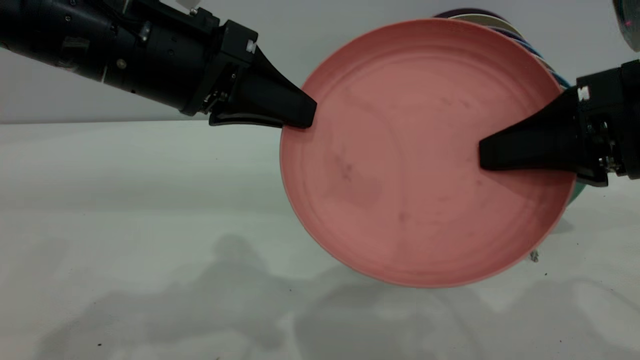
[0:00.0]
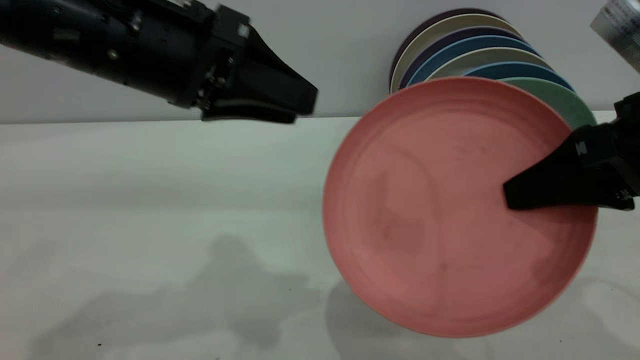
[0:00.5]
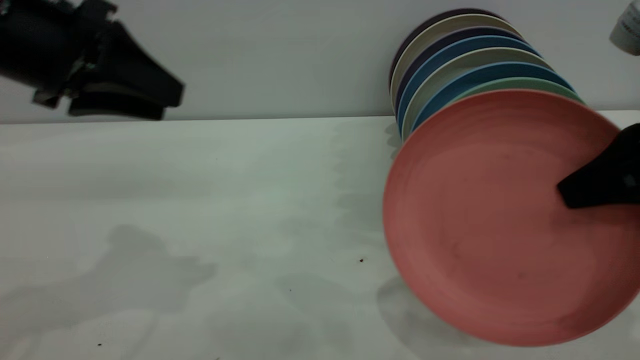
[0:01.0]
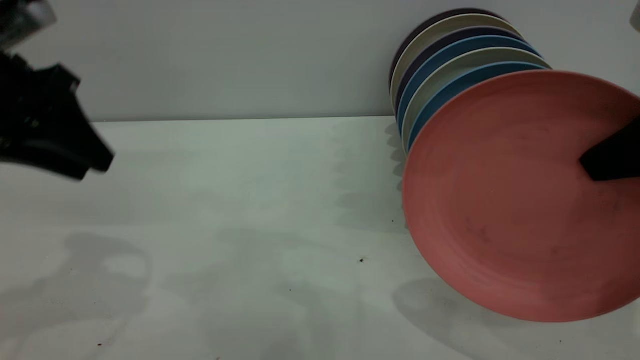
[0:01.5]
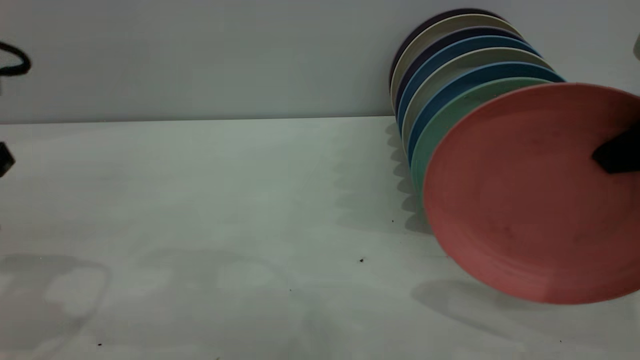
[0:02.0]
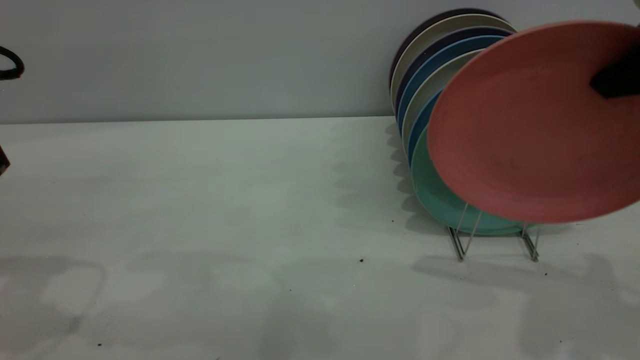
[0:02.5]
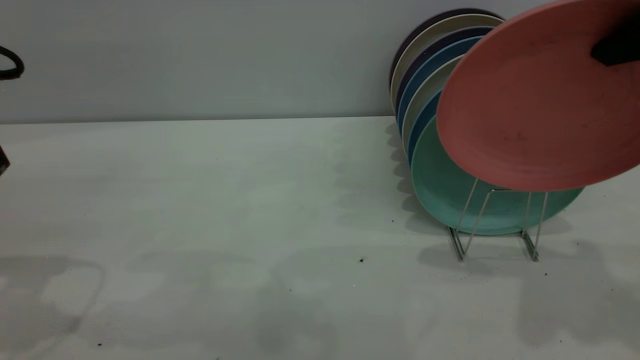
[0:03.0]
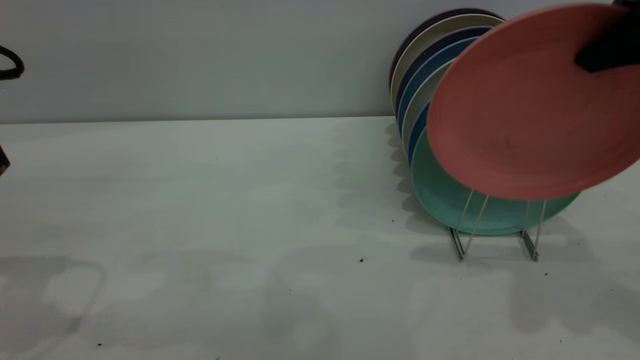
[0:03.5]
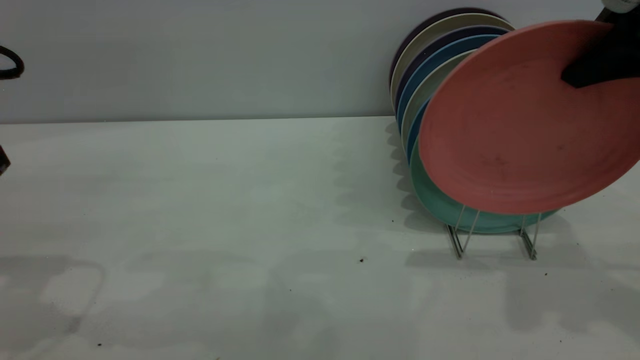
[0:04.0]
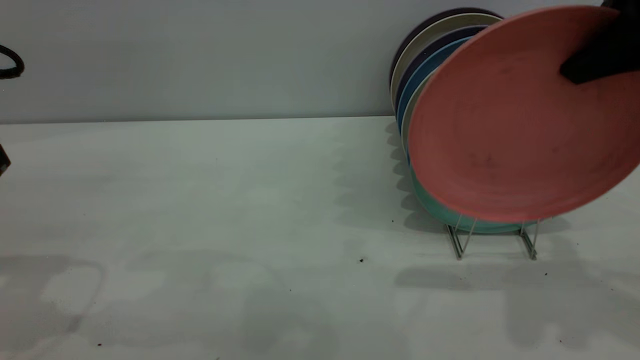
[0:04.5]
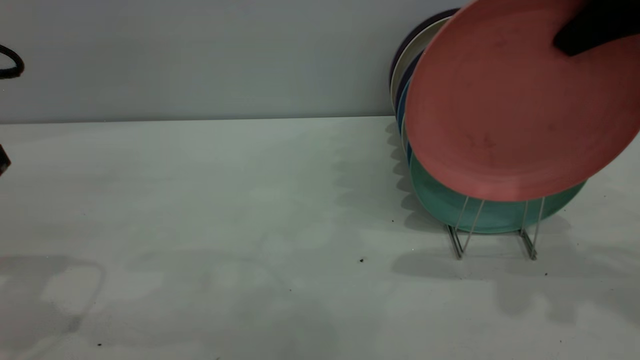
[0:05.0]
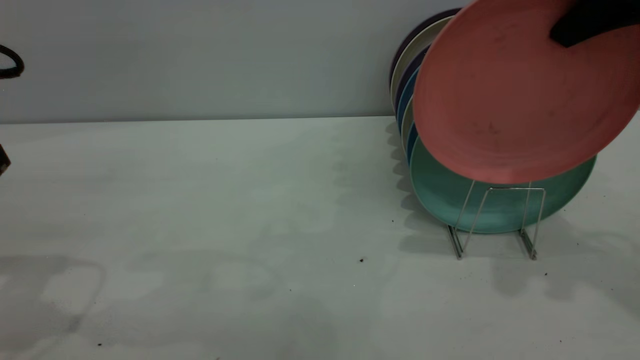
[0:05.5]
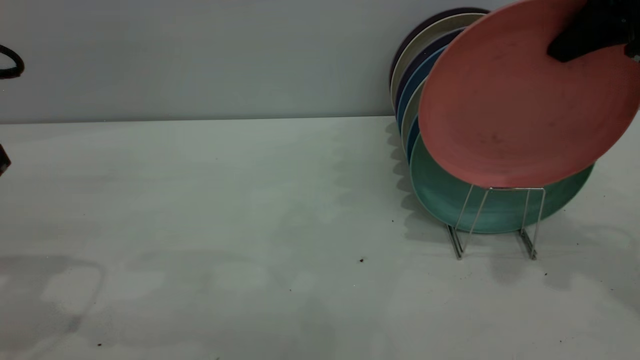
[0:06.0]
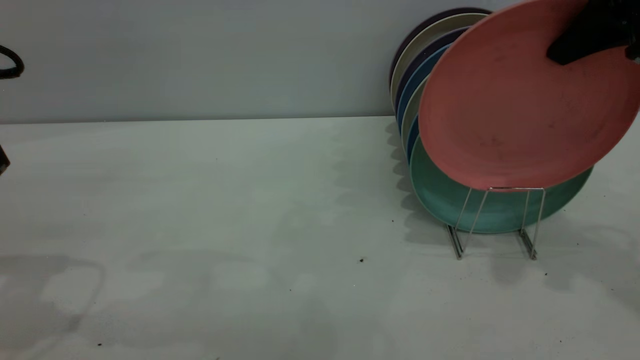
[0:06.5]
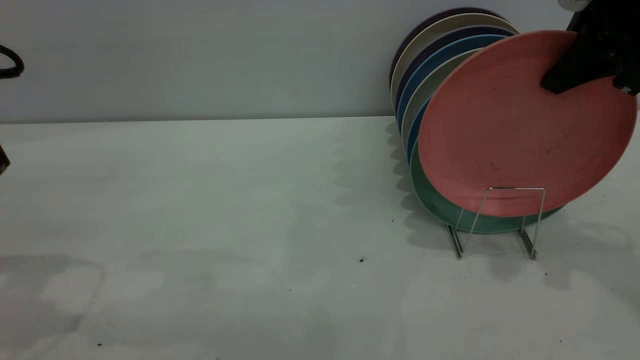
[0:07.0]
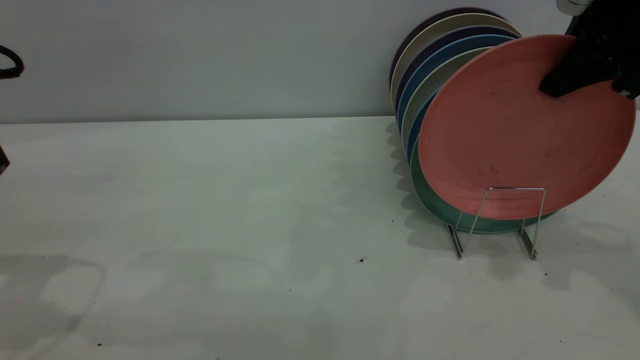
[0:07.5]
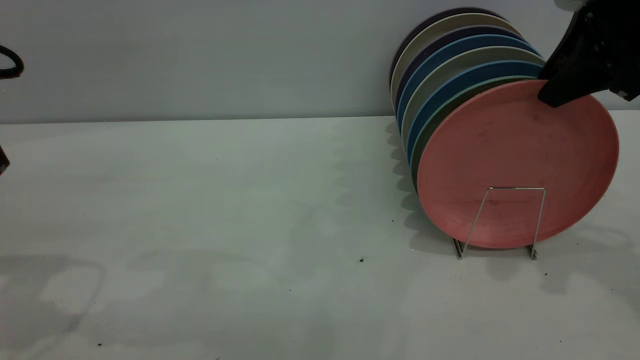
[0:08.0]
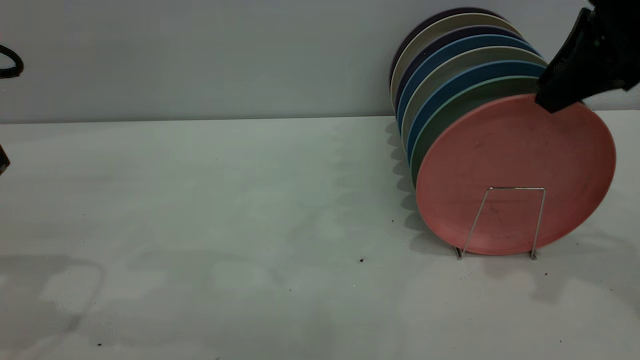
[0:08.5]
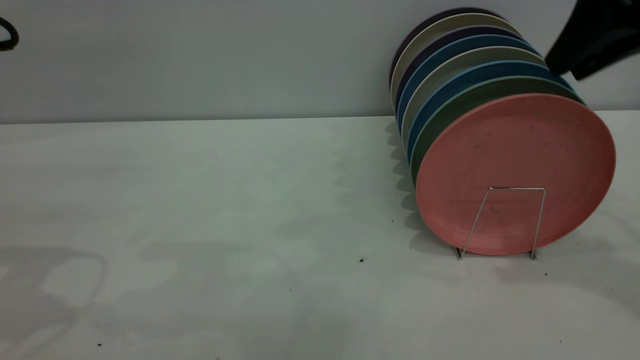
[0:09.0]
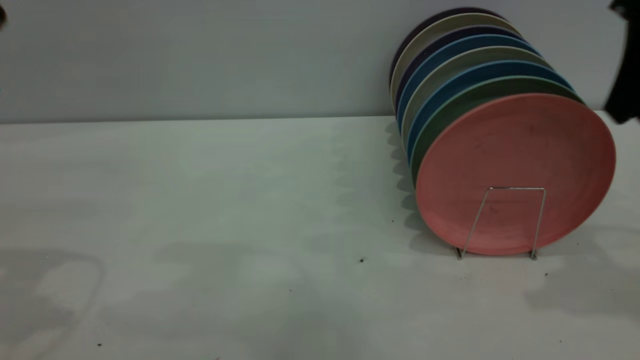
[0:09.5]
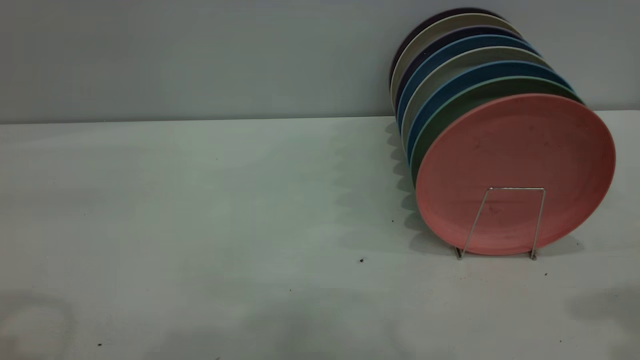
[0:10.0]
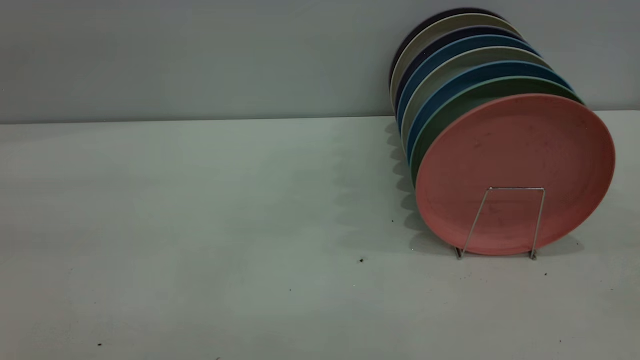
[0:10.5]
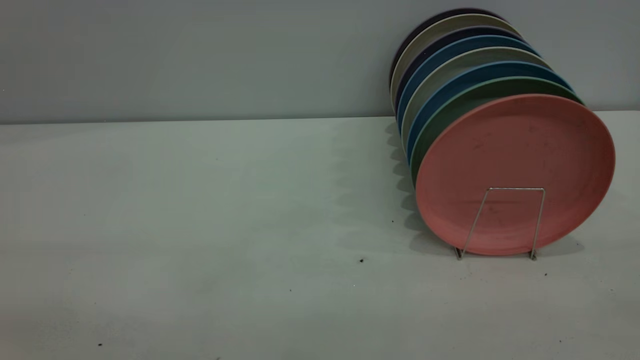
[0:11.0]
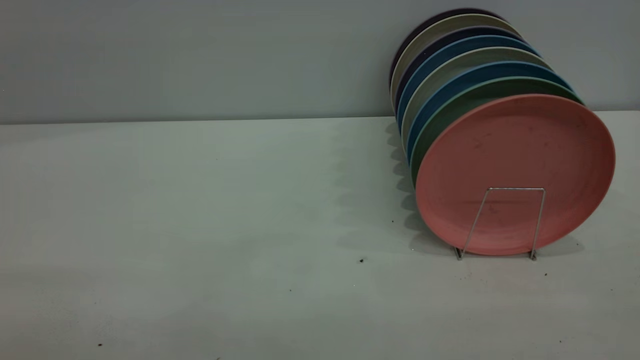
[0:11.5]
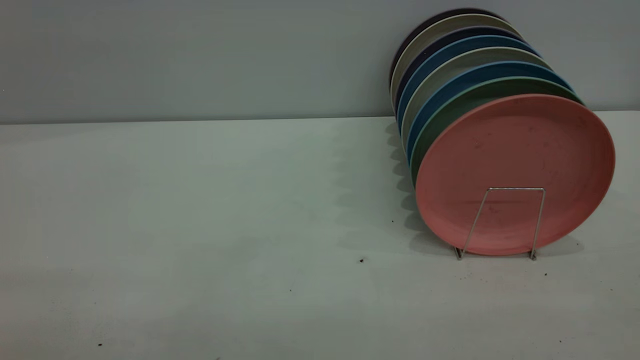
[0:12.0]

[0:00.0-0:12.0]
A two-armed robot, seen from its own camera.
Task of the whole recording: put the plate on the plate rack.
Step, 0:00.5 to 0:08.0: Place the plate on the shelf.
0:00.0 to 0:02.0: The right gripper changes place by roughly 5 cm. The left gripper travels to the left by roughly 20 cm, and opens its fingers.
0:02.0 to 0:04.0: The right gripper is displaced forward by some 5 cm.
0:04.0 to 0:06.0: The right gripper goes about 5 cm forward.
0:06.0 to 0:08.0: The right gripper opens.
0:08.0 to 0:10.0: The right gripper travels backward and upward by about 20 cm.

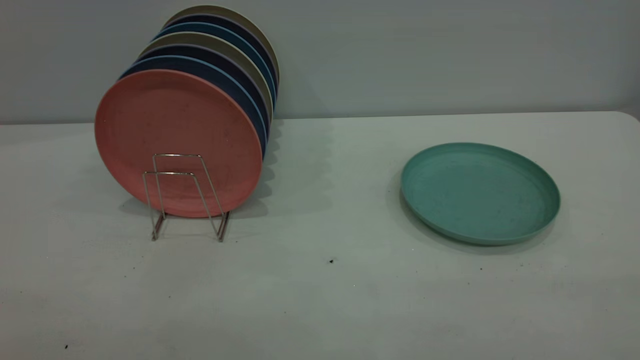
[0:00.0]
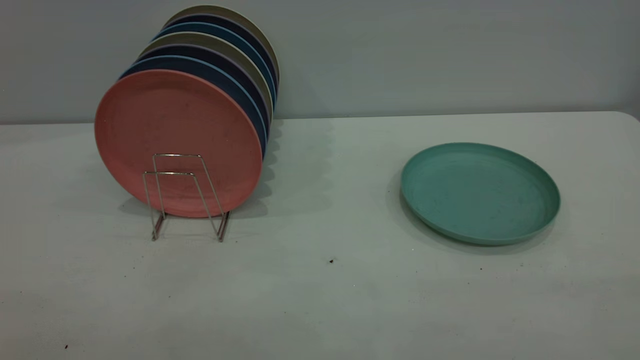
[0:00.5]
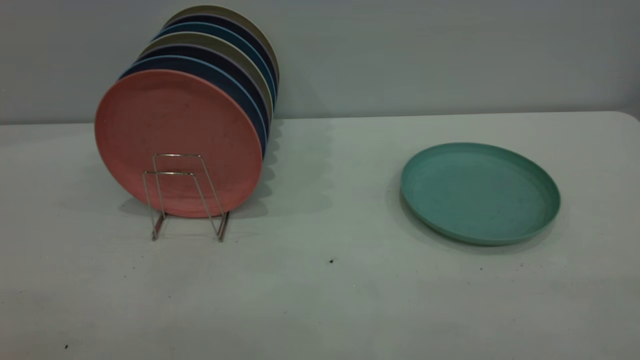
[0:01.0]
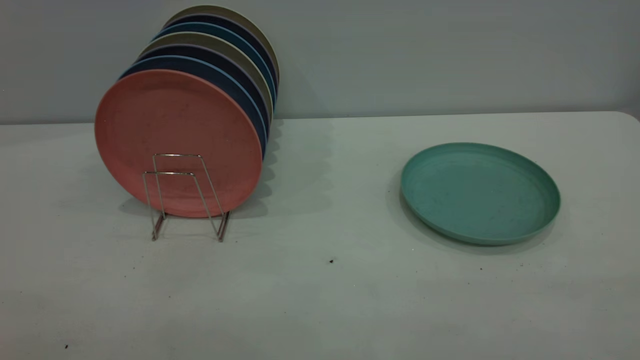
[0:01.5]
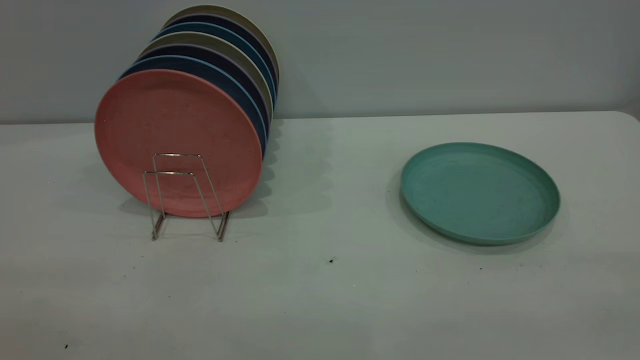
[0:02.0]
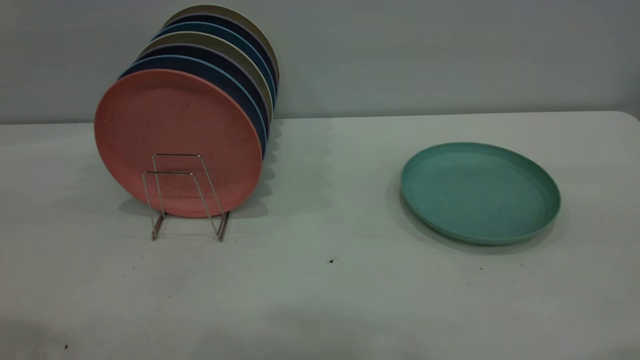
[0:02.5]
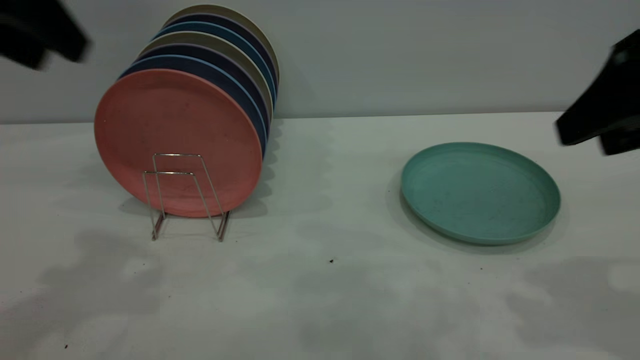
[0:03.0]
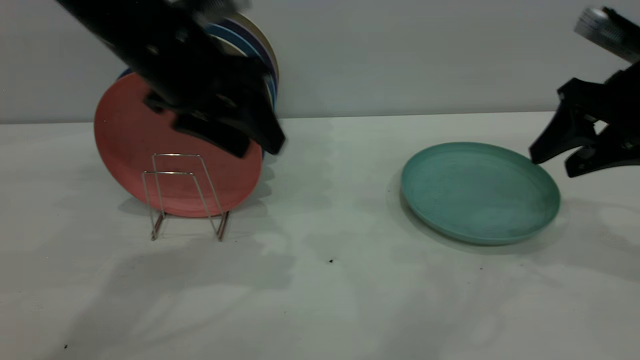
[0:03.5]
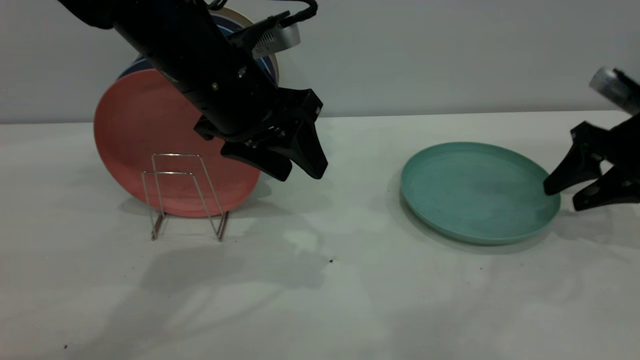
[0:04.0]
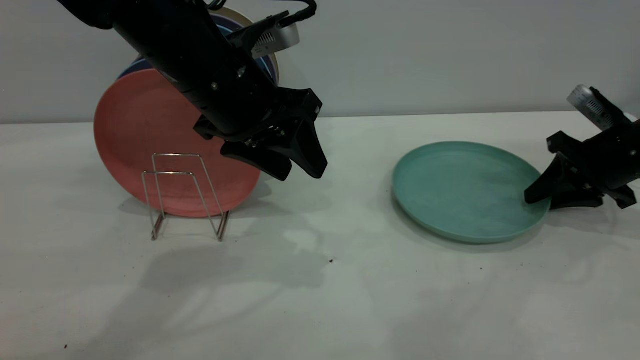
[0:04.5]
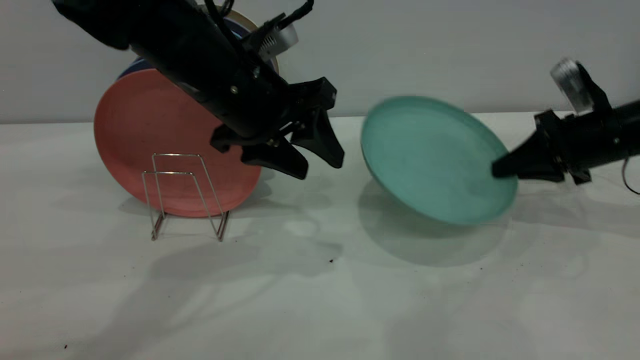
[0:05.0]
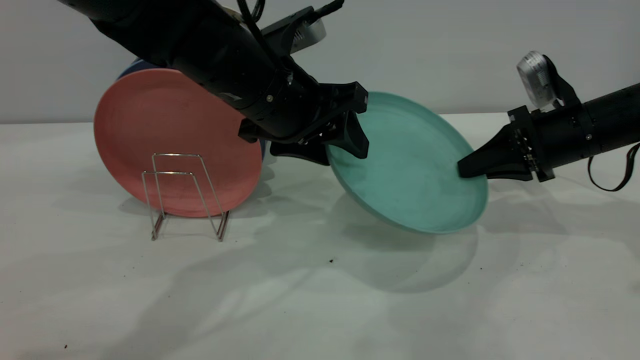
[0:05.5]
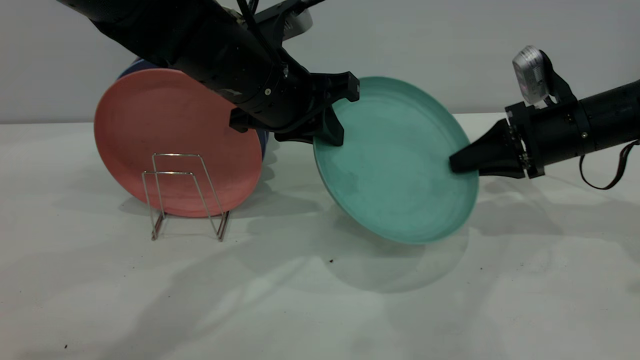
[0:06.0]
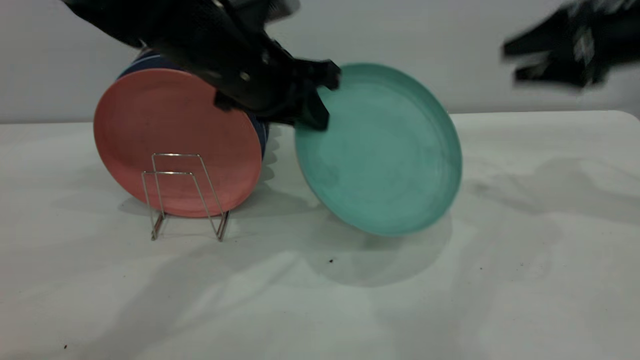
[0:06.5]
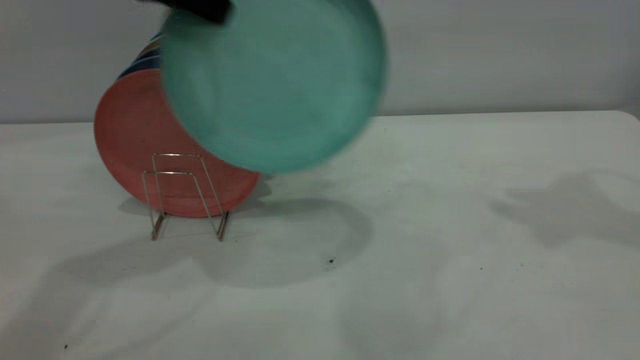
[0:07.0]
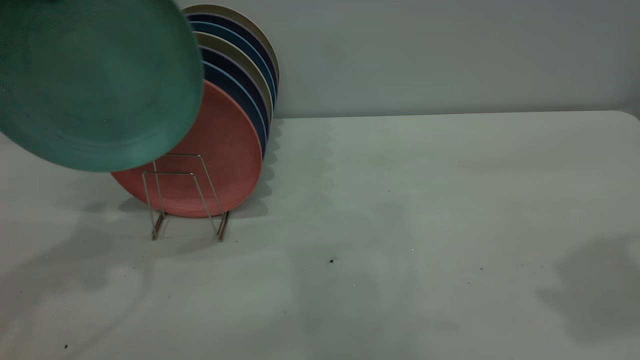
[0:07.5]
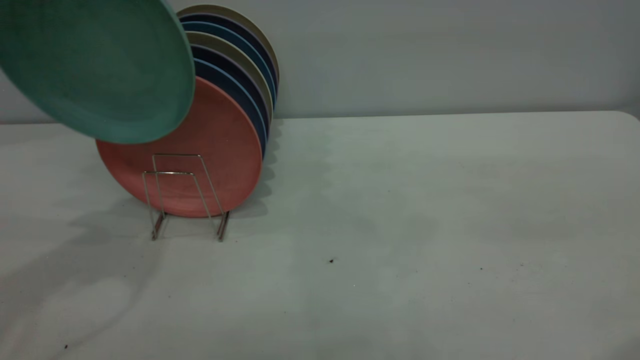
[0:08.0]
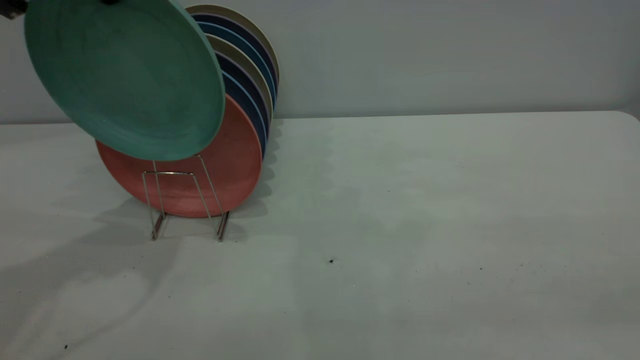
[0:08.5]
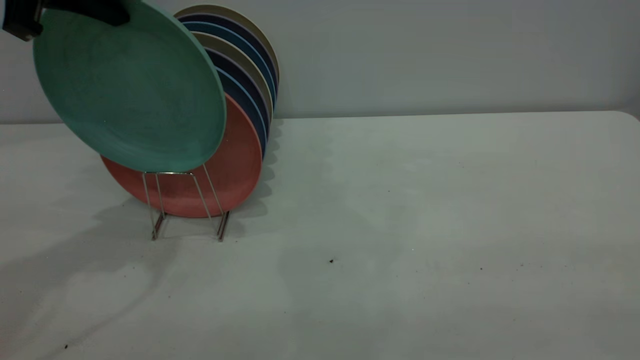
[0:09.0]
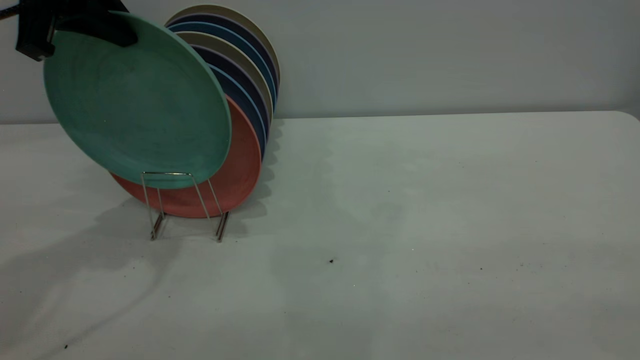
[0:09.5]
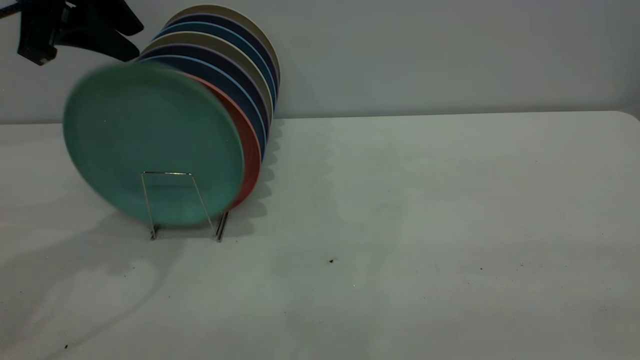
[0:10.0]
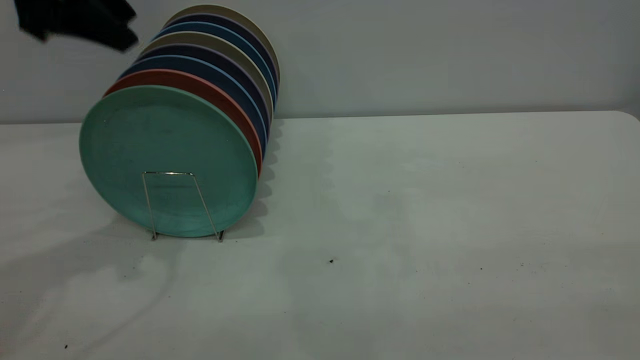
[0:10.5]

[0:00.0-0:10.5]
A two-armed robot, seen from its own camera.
Task of the whole recording: the right gripper grasp the green plate, the right gripper pass the green plate to the left gripper, and the left gripper place the green plate on the plate rack.
Step, 0:00.0 to 0:04.5: Pick up the plate with the right gripper.
Step, 0:05.0 to 0:06.0: Pass the plate from the right gripper to the left gripper.
Step, 0:06.5 to 0:10.0: Place the plate on the shelf.
0:02.0 to 0:04.0: The right gripper travels forward and downward by approximately 50 cm. Meanwhile the left gripper moves forward, to the right and downward, approximately 40 cm.
0:04.0 to 0:06.5: The right gripper is displaced upward by about 10 cm, and closes, then opens again, while the left gripper closes its fingers.
0:06.5 to 0:08.5: The right gripper travels backward by approximately 40 cm; the left gripper moves to the left and upward, approximately 20 cm.
0:08.5 to 0:10.5: The left gripper opens its fingers.
